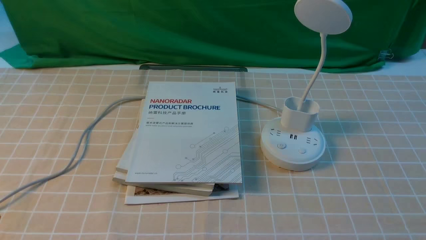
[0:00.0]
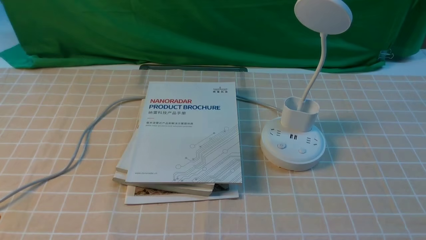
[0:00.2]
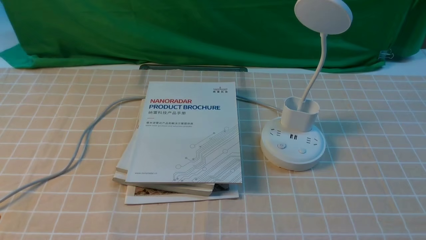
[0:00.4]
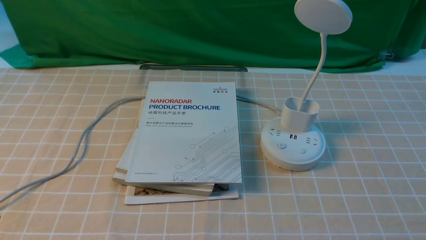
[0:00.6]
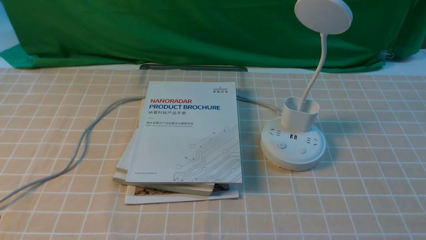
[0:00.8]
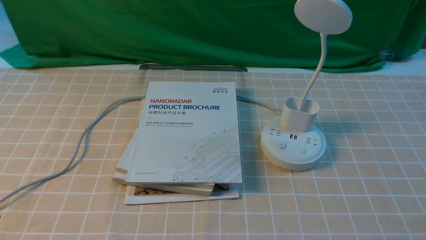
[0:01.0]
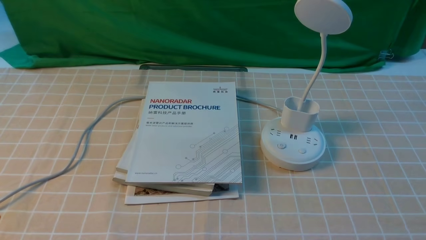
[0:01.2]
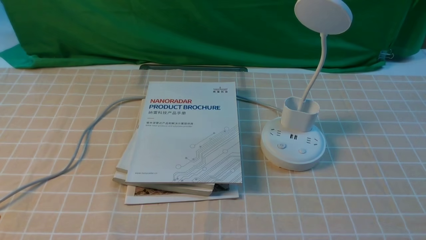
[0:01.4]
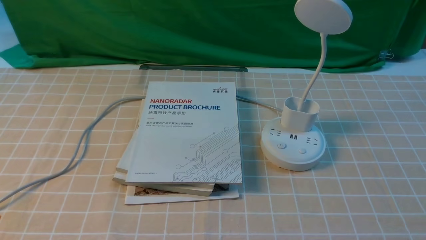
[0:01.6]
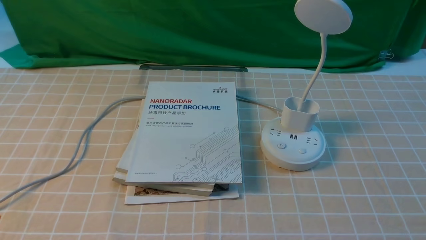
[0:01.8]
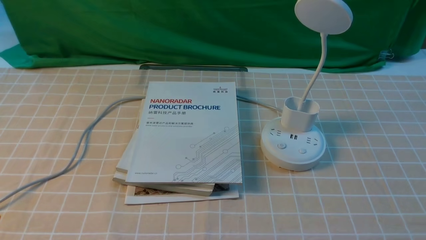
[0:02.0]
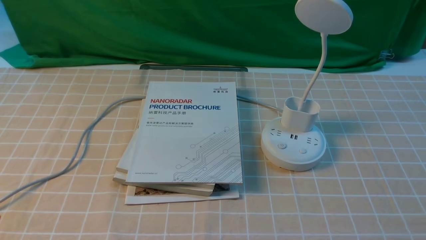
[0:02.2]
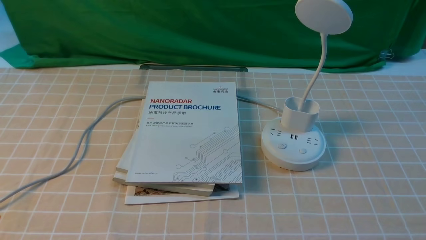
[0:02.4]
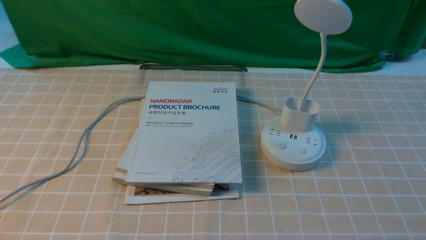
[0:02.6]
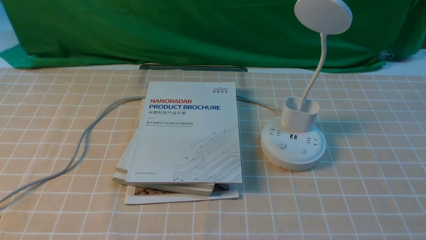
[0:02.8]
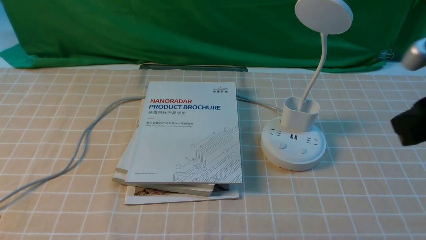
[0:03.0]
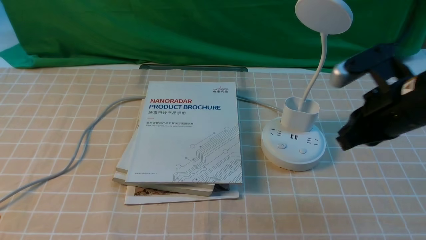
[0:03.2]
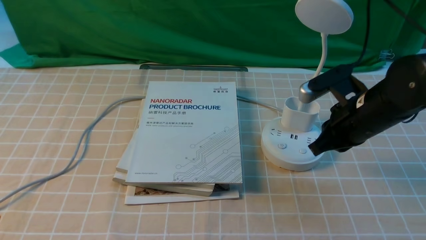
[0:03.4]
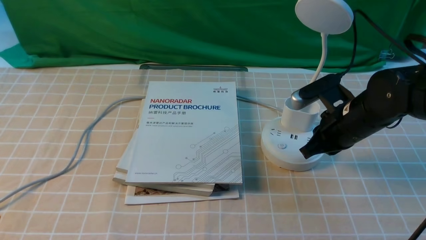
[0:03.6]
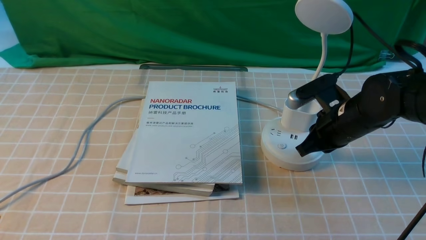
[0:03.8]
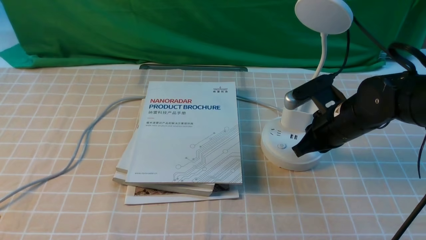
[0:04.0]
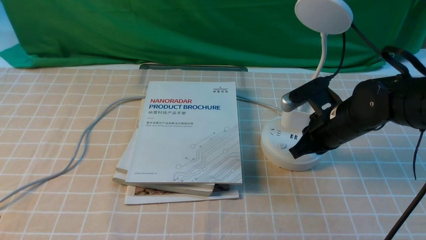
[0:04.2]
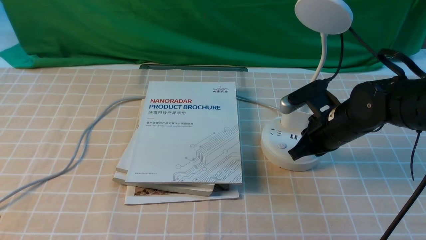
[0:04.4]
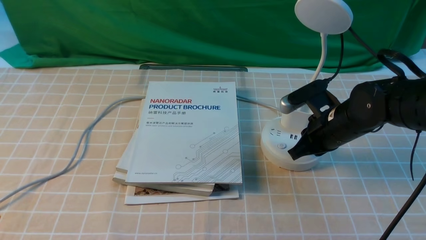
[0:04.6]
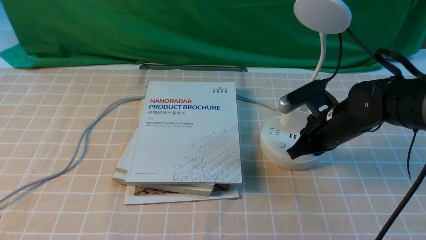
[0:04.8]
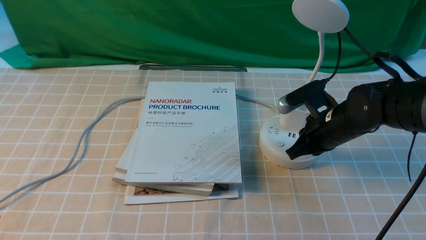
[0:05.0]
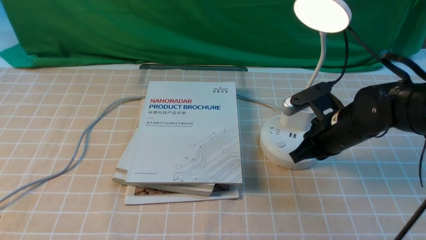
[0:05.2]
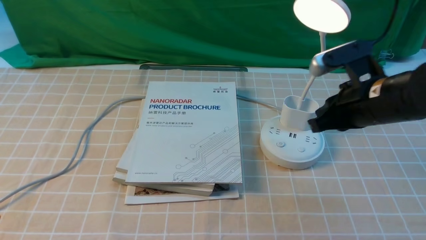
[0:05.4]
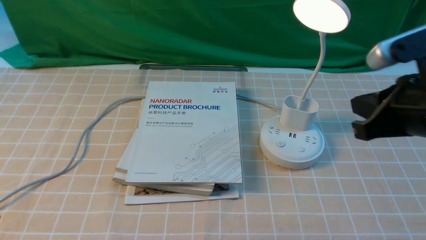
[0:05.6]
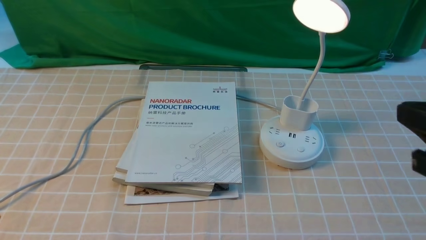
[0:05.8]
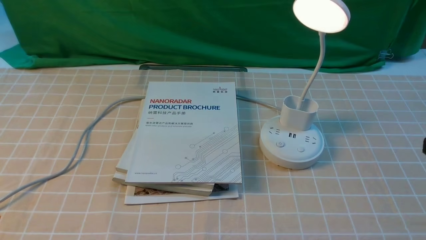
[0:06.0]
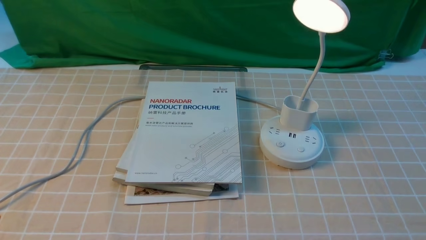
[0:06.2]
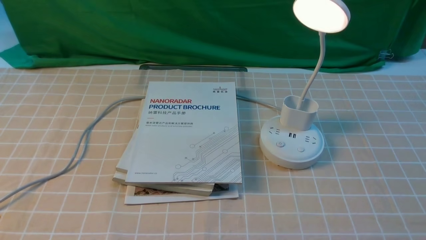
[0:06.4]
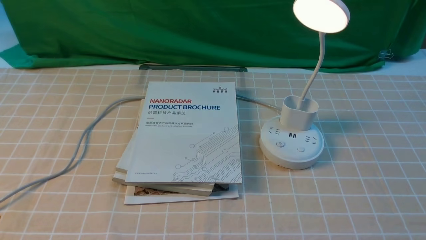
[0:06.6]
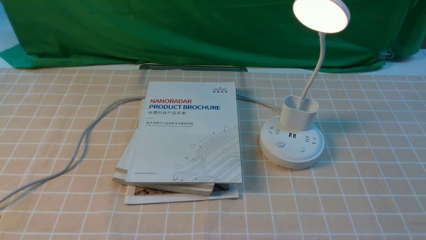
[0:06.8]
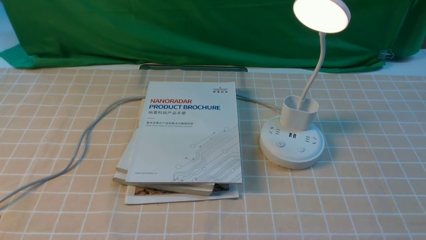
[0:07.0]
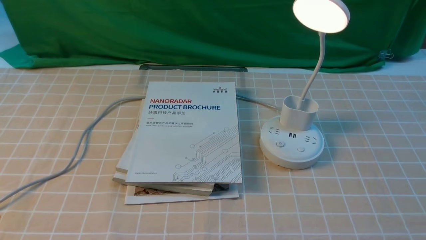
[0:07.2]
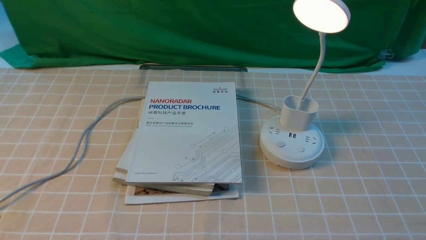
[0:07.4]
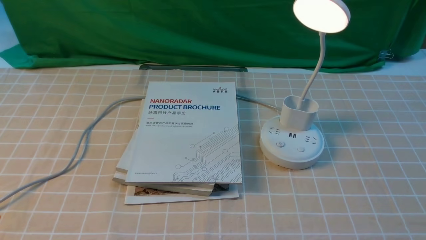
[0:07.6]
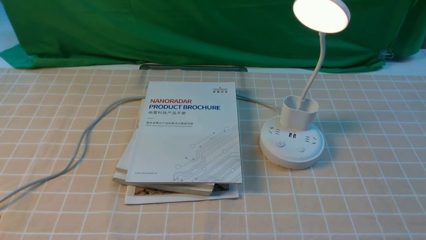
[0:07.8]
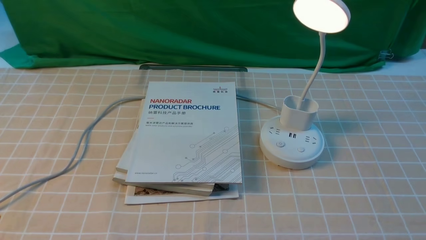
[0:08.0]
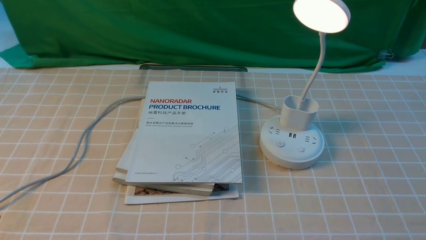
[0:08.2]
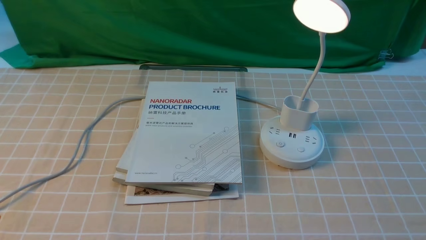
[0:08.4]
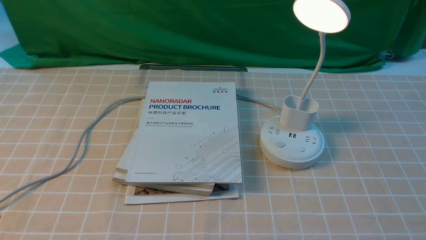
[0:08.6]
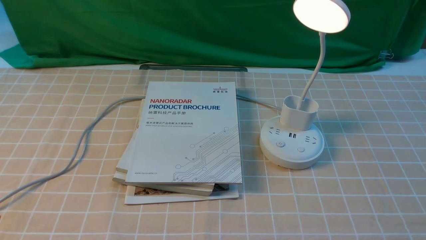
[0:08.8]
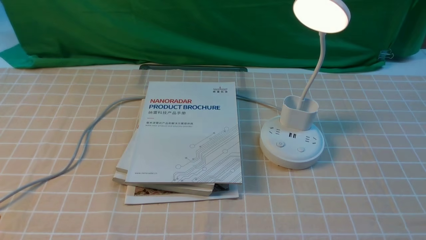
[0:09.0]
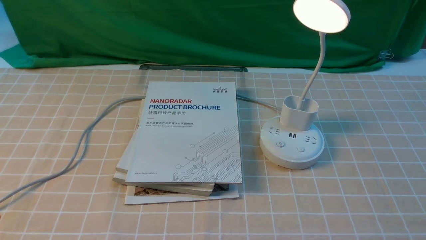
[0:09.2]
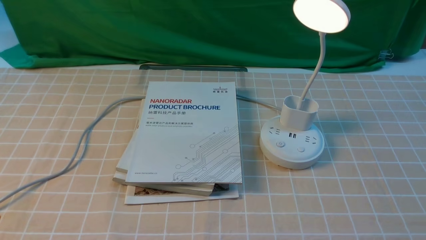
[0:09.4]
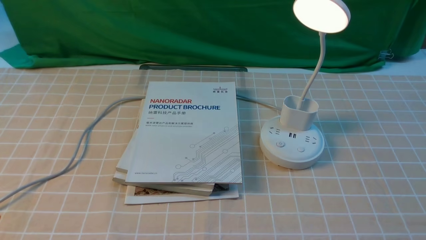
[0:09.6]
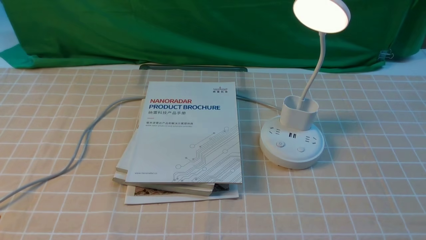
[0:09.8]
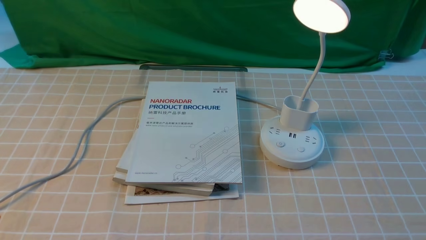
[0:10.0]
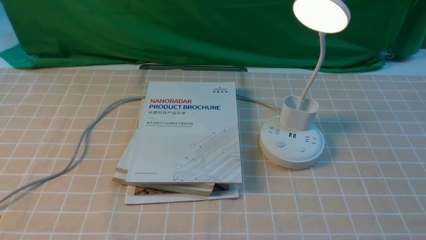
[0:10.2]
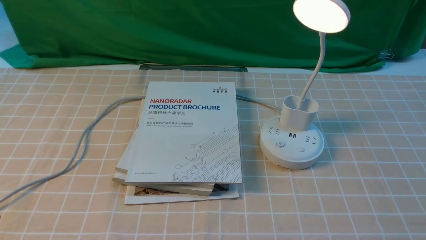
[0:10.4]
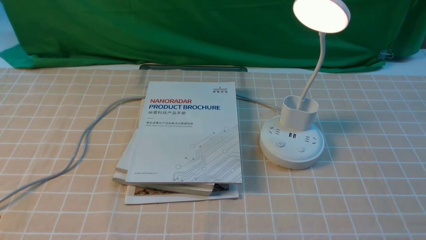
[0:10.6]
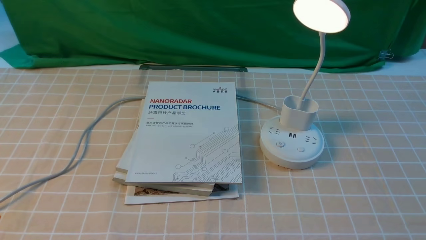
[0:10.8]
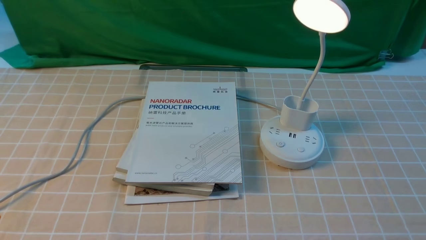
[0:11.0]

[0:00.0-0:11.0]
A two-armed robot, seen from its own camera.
Step, 0:00.0 to 0:05.4: use the right arm to press the button switch on the lamp holder.
0:01.6 to 0:03.2: The right gripper is displaced forward, to the left and upward by roughly 25 cm, and closes.
0:03.2 to 0:04.8: The right gripper heads downward and forward, covering approximately 15 cm.
0:04.8 to 0:06.2: The right gripper shifts roughly 30 cm backward and upward.
0:07.8 to 0:11.0: The two grippers keep their place.
